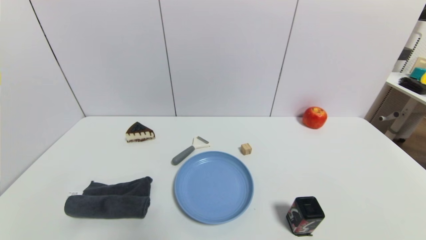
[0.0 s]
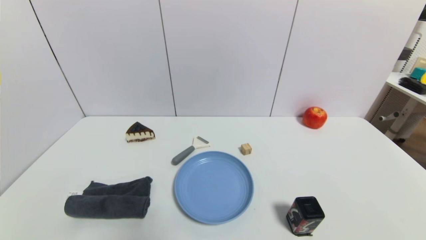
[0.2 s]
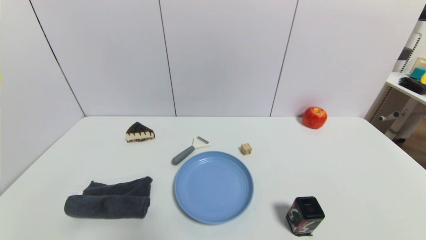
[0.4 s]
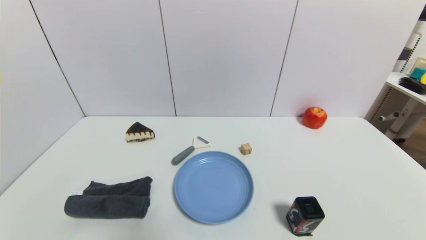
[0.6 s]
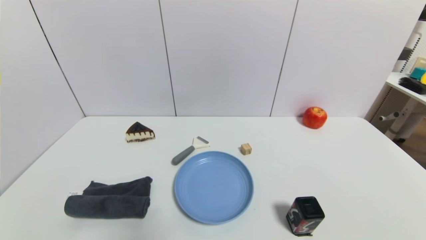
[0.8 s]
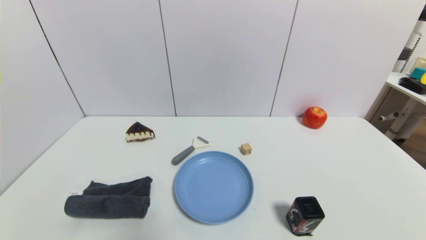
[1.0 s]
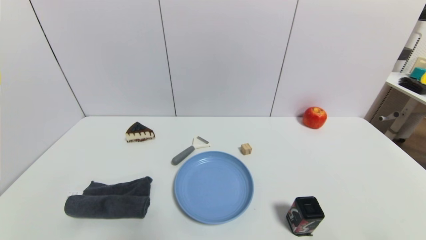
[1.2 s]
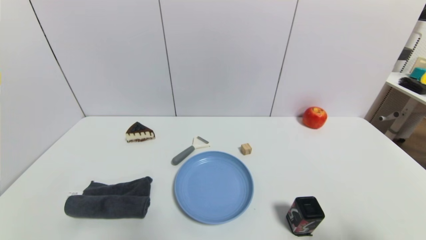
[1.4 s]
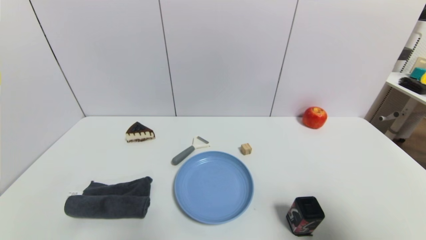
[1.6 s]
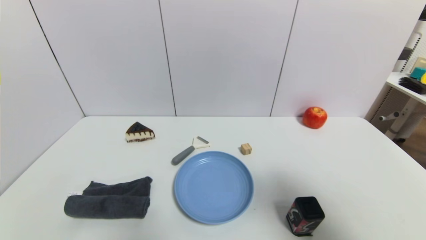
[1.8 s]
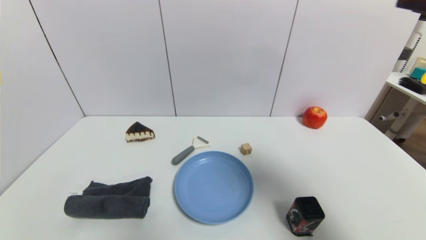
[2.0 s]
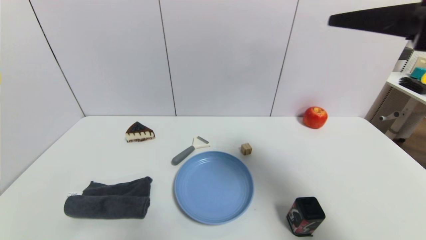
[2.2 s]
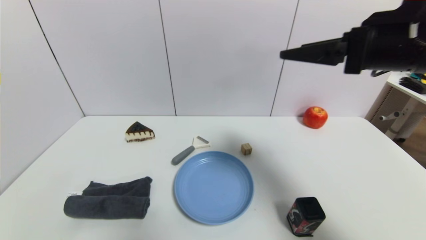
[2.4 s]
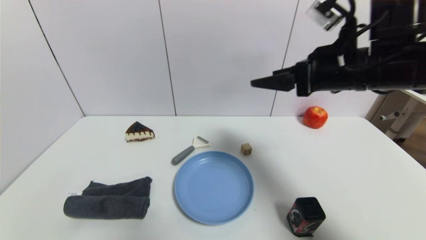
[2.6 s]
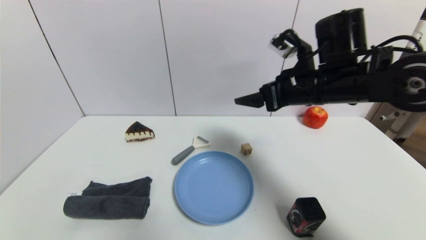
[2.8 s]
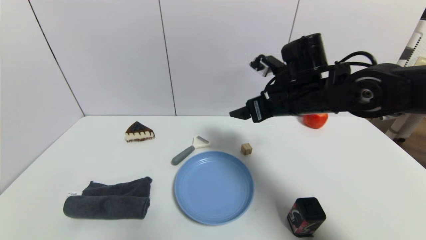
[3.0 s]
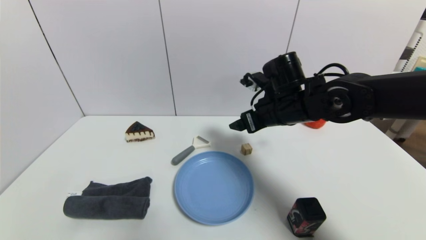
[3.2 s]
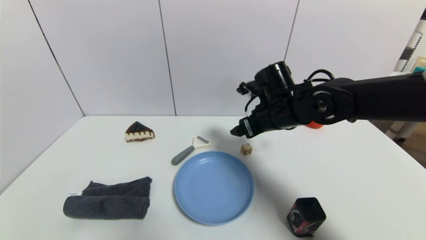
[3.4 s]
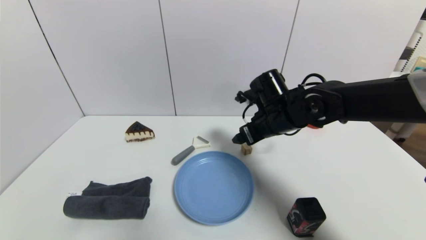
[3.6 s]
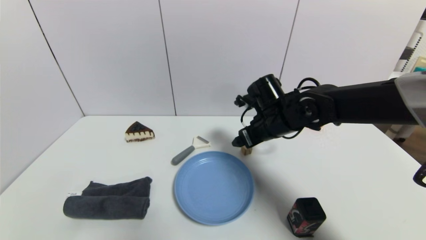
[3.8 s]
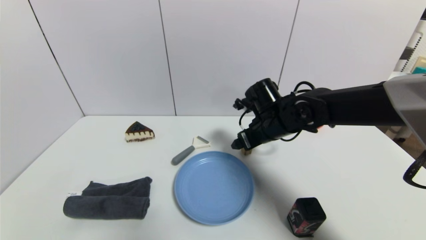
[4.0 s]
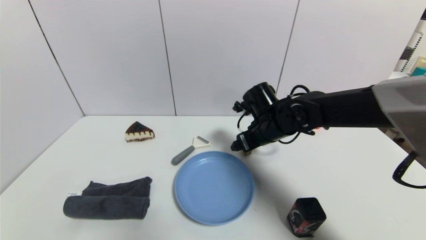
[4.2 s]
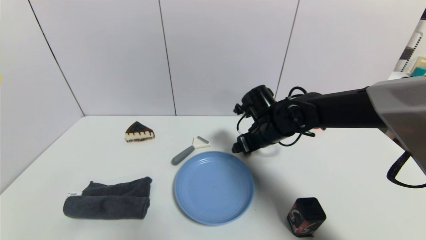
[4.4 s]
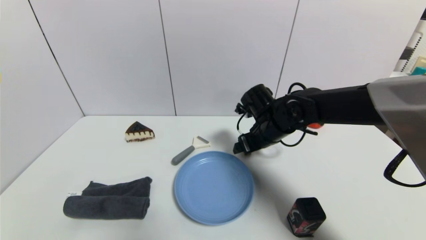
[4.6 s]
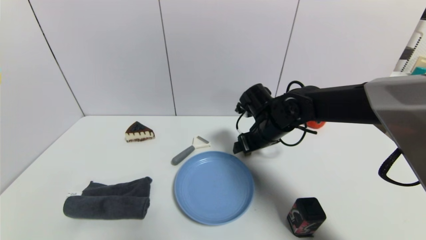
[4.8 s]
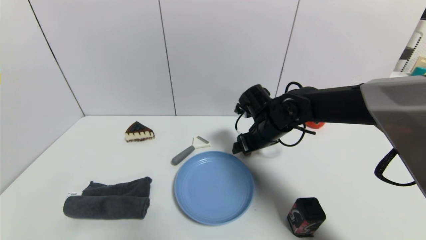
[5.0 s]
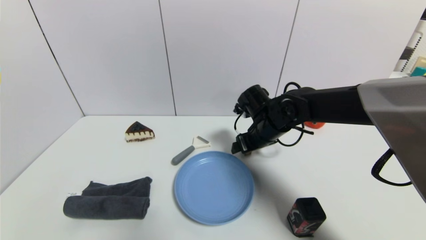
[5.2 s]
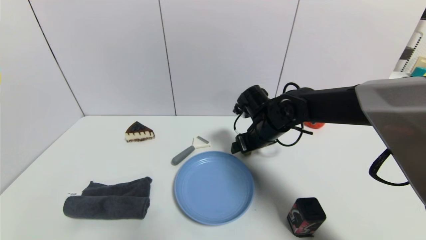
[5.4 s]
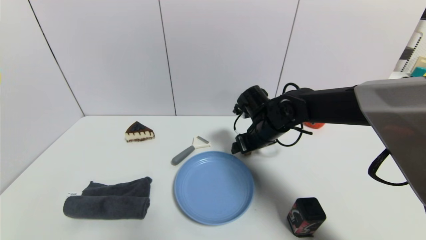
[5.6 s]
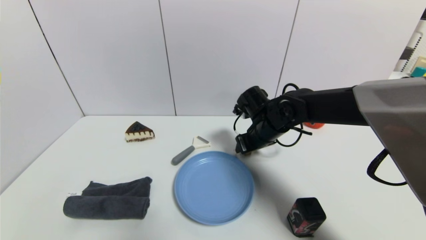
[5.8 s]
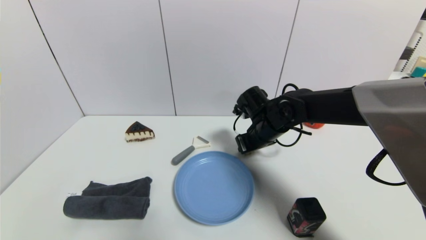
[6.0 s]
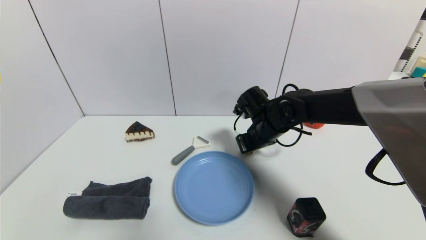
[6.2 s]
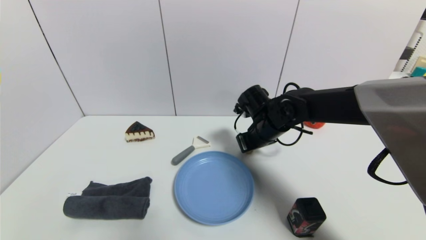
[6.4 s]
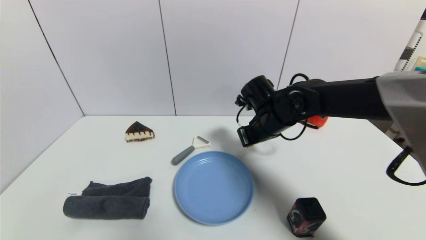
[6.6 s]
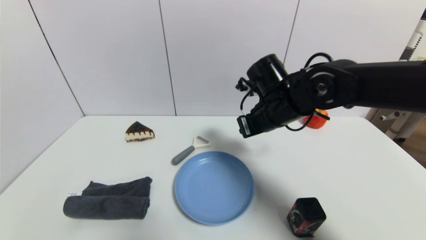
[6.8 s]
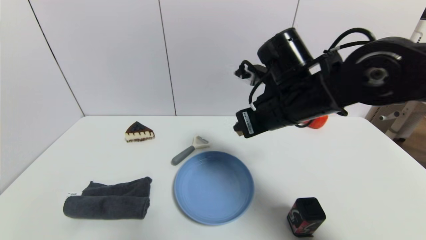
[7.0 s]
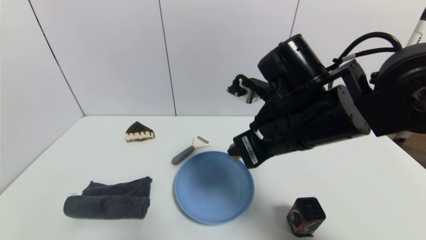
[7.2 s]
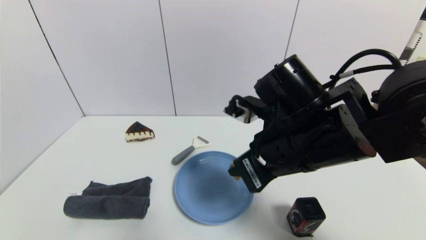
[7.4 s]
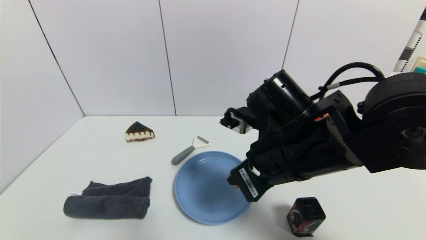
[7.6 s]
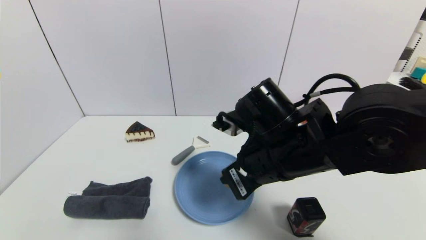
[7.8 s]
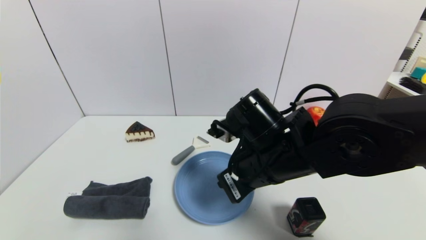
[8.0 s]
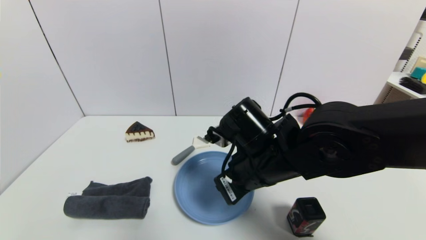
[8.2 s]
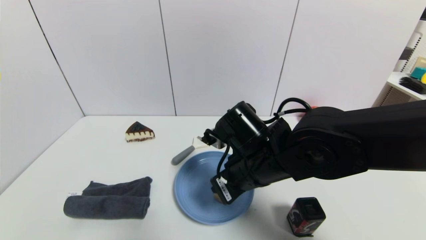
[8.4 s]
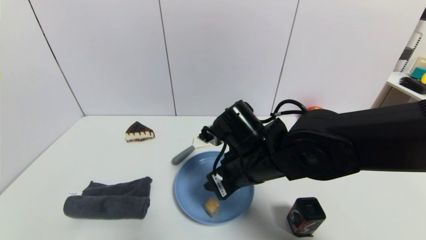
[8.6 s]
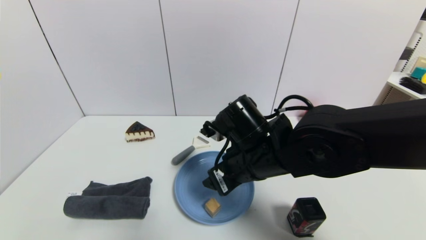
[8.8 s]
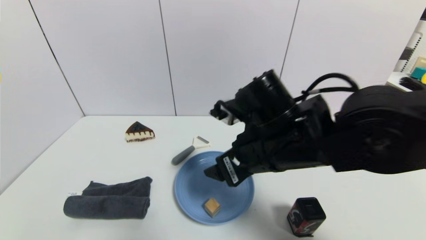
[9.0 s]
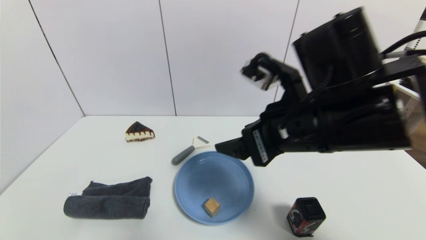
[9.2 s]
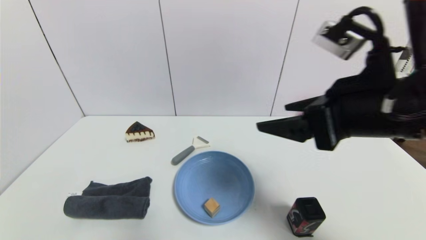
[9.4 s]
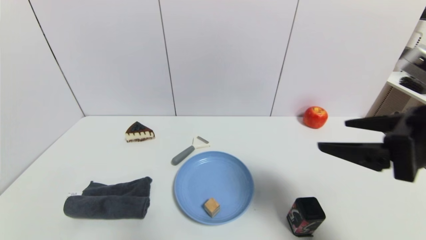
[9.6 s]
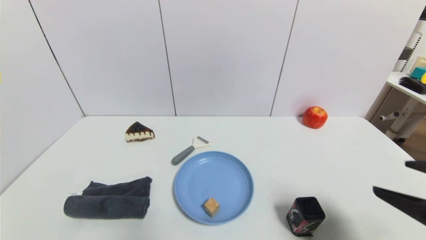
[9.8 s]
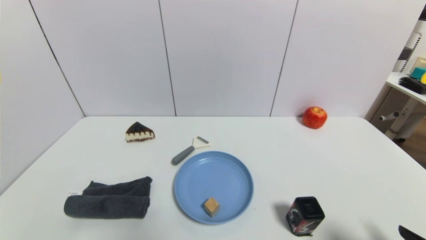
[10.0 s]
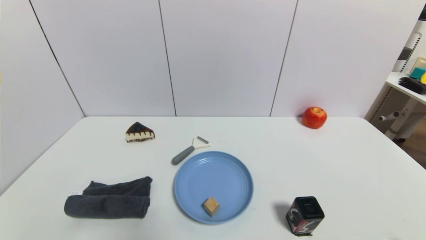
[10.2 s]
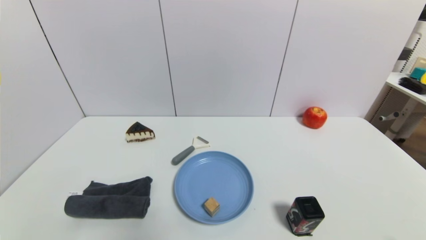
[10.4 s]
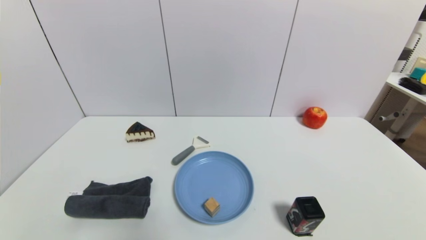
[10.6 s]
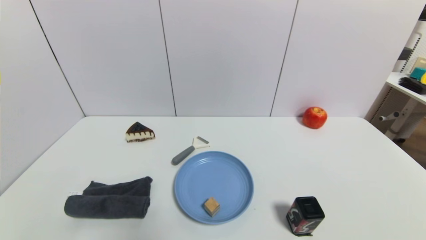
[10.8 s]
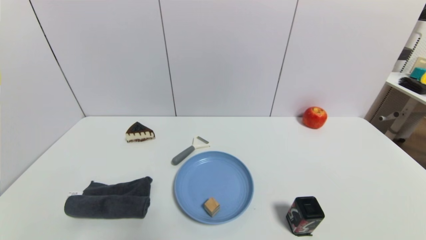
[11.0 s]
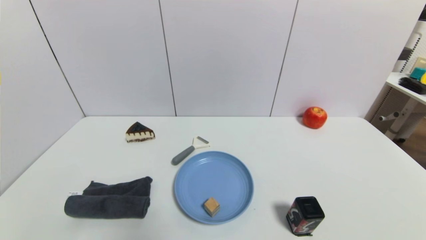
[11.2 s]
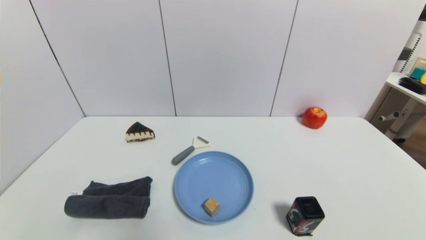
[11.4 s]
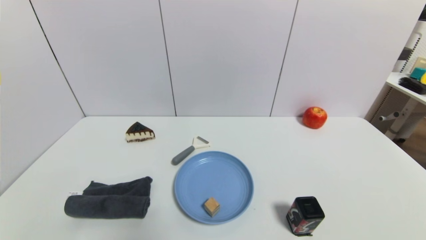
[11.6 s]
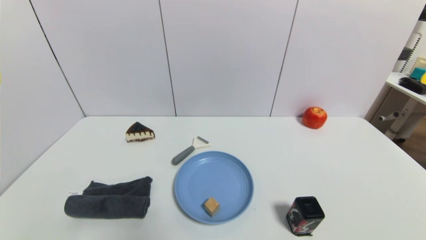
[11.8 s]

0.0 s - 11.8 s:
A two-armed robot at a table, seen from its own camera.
Task of the whole recording: use a gripper to pick the target object and place on the blue plate.
Step, 0.0 s - 6.0 s: Grasp the square wooden block with the right gripper.
Step, 6.2 s - 8.4 s: Place the square wooden block on the blue plate with the right gripper.
0.0 s - 1.4 s: The right gripper travels upward by about 20 cm.
1.4 s - 3.0 s: The right gripper travels forward and to the left by about 35 cm.
3.0 s - 4.4 s: The right gripper is displaced downward by some 10 cm.
4.4 s - 6.0 s: The right gripper closes up.
6.0 s - 7.4 s: The right gripper heads backward and upward, covering about 20 cm.
7.4 s - 8.8 s: The right gripper travels downward by some 5 cm, and opens its fingers.
8.8 s - 10.4 s: The right gripper goes roughly 35 cm to the right and backward.

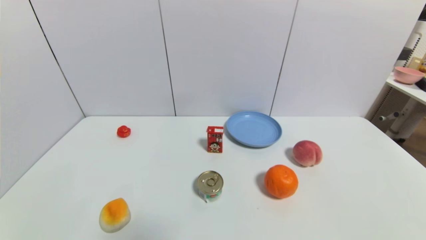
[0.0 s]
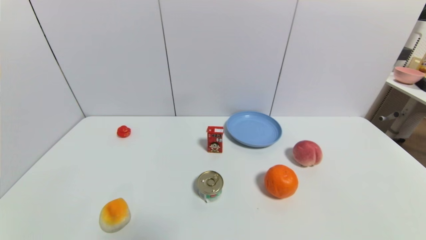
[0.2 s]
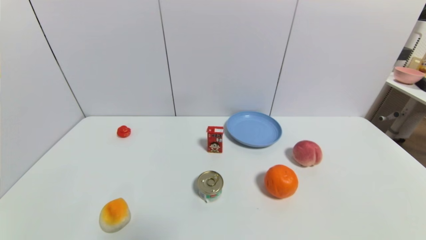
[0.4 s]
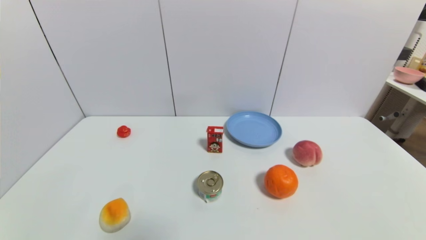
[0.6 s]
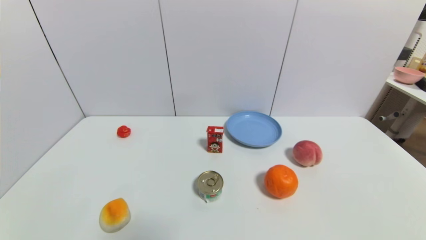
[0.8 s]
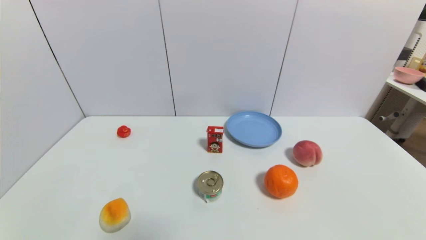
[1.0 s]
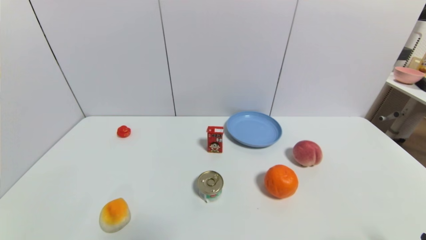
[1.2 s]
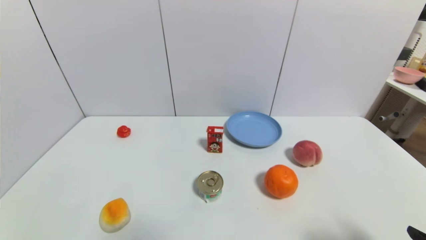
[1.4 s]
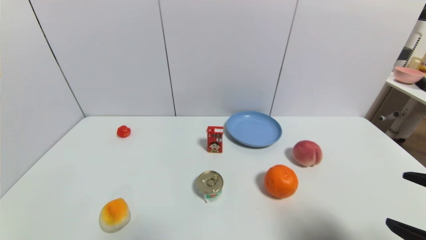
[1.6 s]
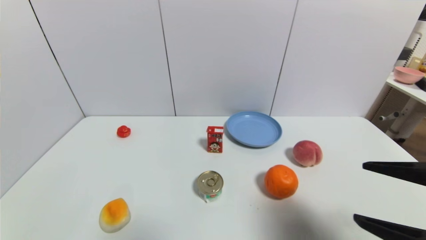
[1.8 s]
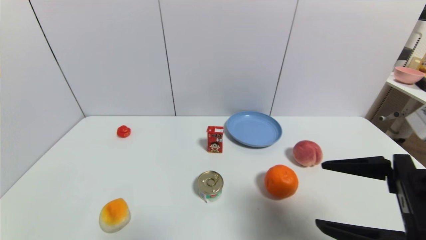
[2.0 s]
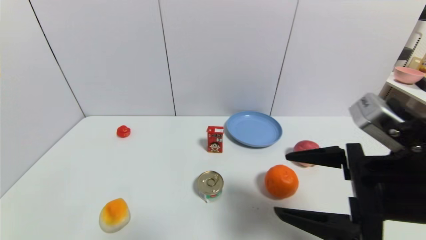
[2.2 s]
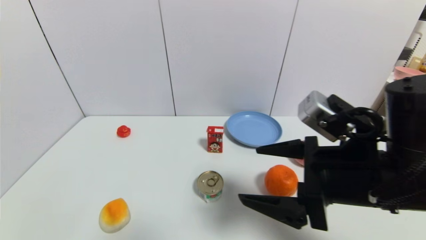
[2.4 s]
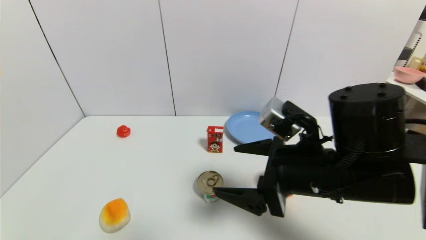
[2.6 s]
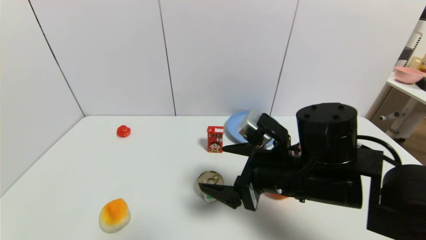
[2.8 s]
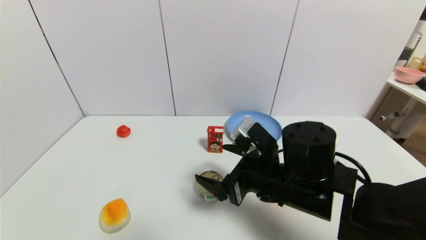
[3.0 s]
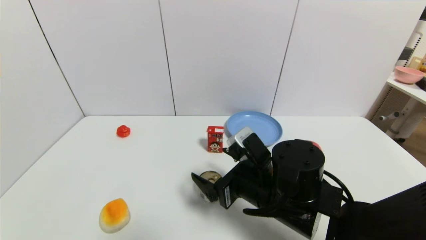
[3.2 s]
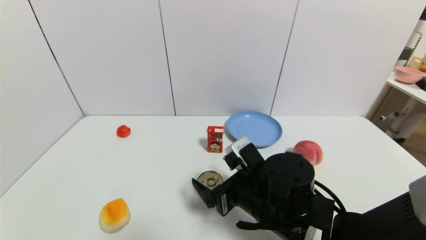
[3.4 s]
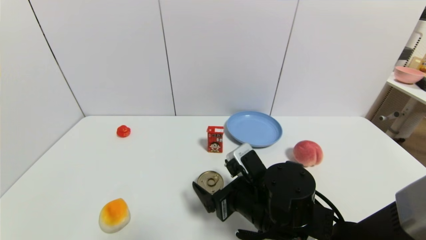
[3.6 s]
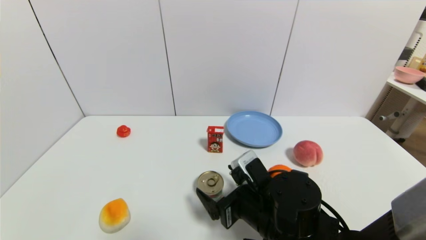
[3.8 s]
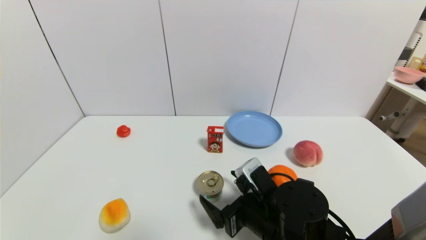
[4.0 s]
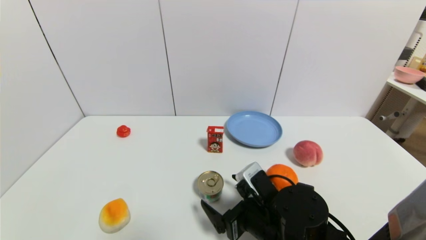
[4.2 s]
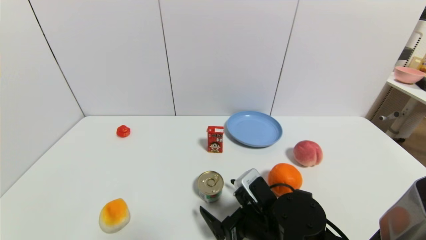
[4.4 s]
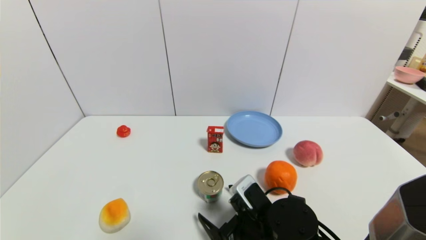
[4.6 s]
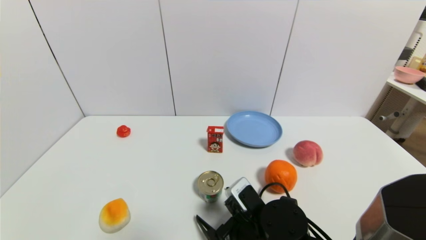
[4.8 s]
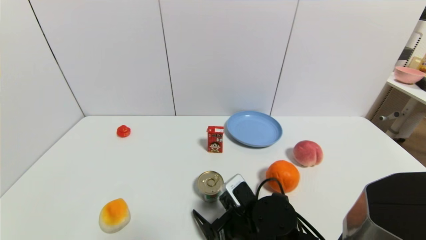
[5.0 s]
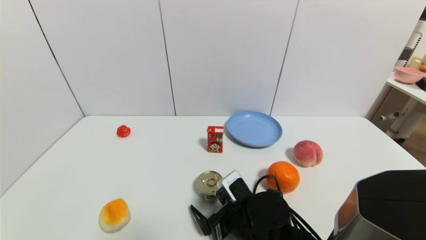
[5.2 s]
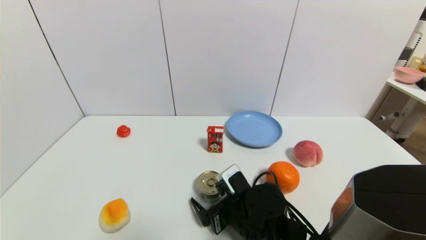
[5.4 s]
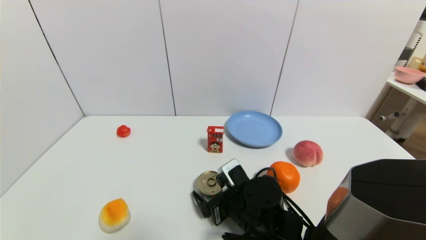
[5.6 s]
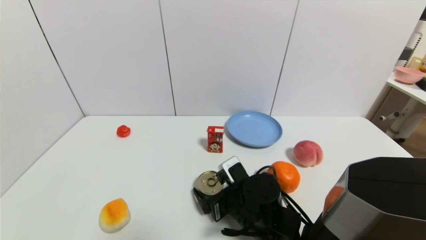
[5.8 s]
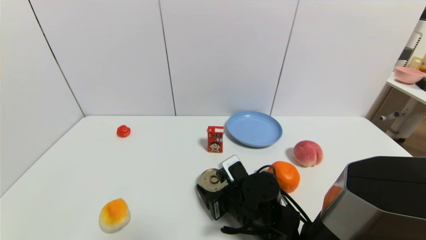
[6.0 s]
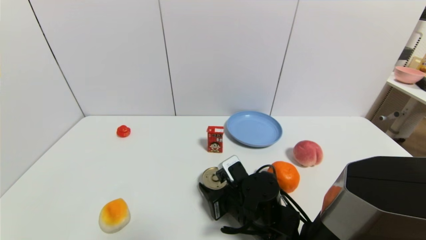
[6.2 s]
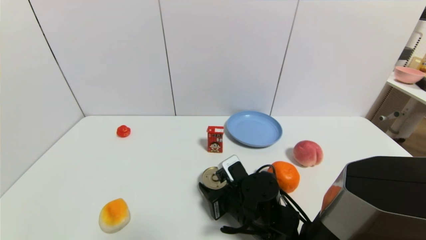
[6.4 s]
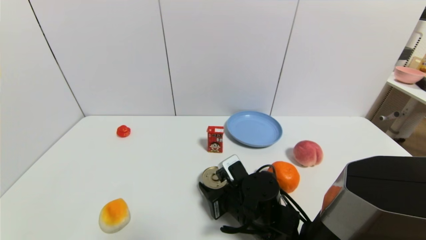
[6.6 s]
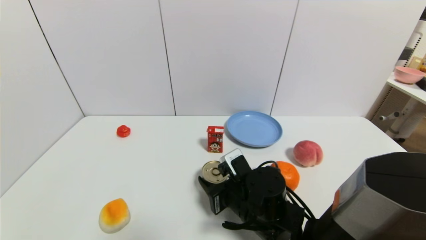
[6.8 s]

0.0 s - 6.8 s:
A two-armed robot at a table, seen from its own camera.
Task of the whole recording: use a gripper to pick the target object and place on the blue plate.
Step, 0.0 s - 6.2 s: Grasp the tin with the right gripper.
0.0 s - 1.4 s: The right gripper moves upward and forward, about 15 cm.
1.4 s - 2.8 s: The right gripper is displaced to the left and forward by about 25 cm.
2.8 s - 4.0 s: The right gripper moves downward, approximately 10 cm.
4.0 s - 5.4 s: The right gripper changes place by about 5 cm.
5.4 s - 6.8 s: The right gripper closes its fingers.
